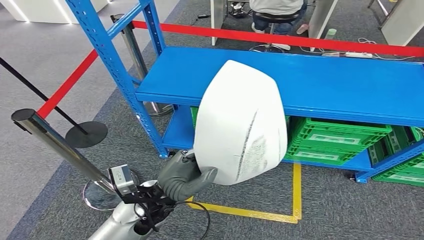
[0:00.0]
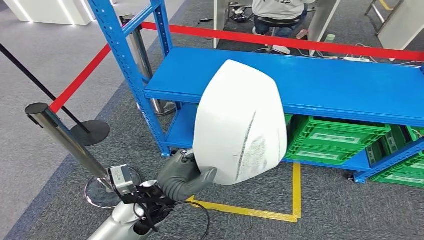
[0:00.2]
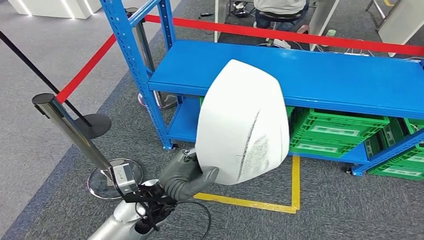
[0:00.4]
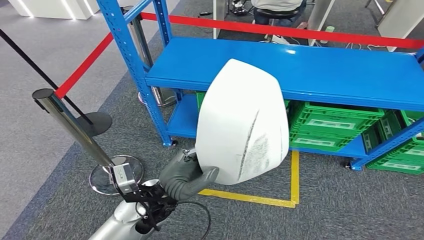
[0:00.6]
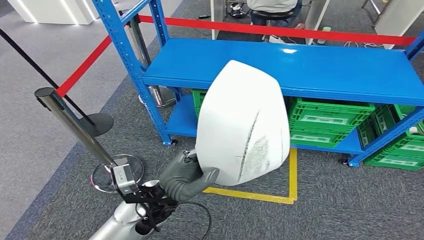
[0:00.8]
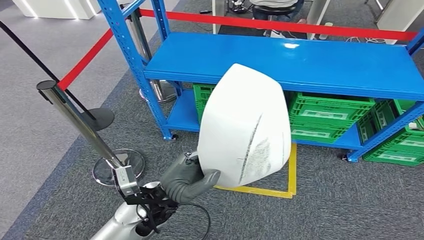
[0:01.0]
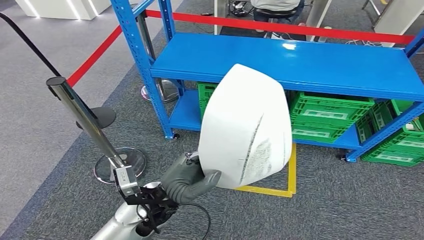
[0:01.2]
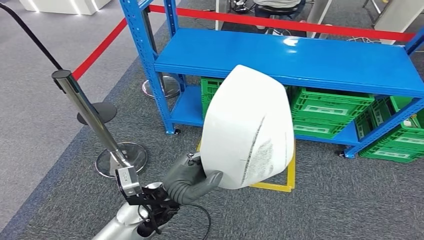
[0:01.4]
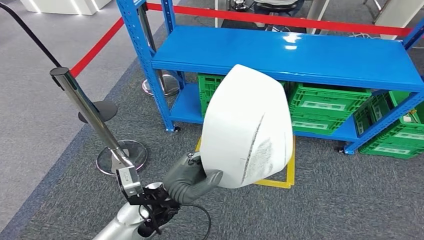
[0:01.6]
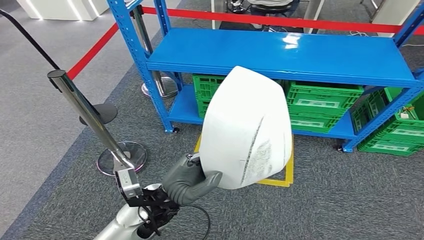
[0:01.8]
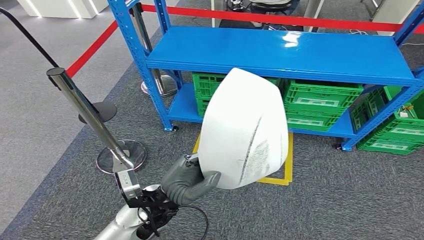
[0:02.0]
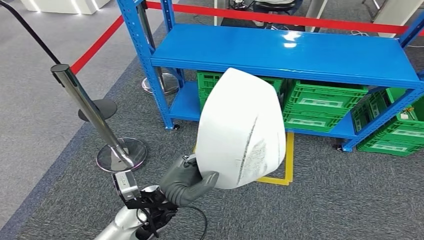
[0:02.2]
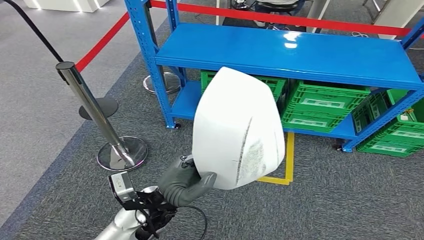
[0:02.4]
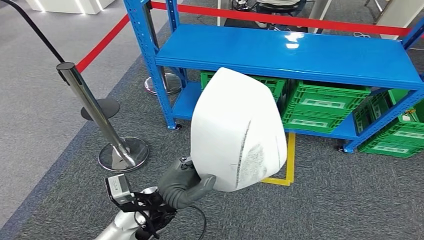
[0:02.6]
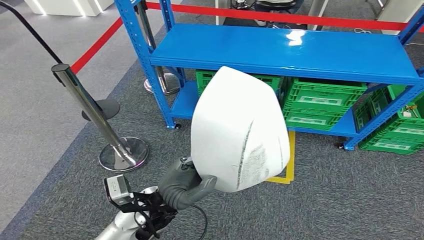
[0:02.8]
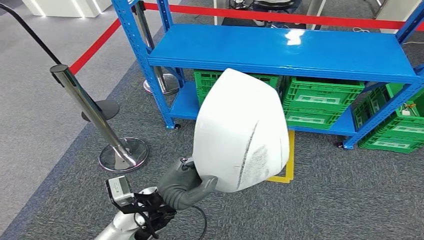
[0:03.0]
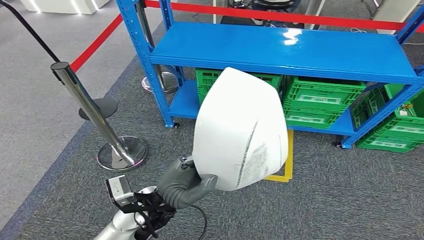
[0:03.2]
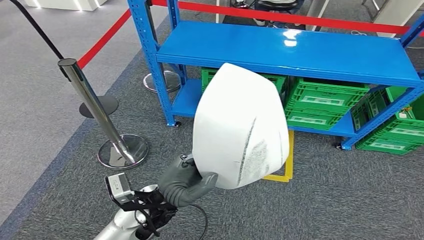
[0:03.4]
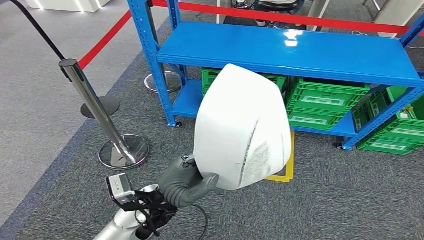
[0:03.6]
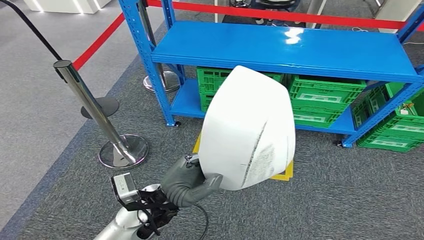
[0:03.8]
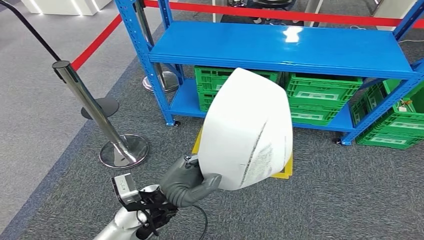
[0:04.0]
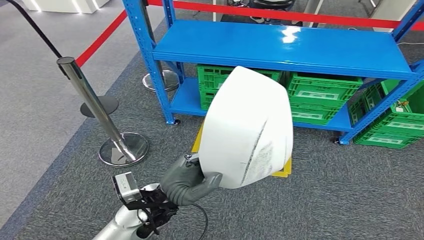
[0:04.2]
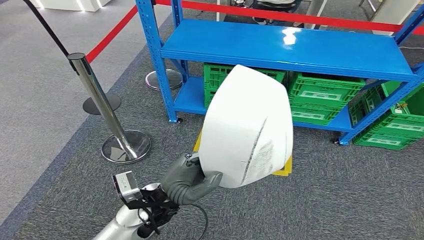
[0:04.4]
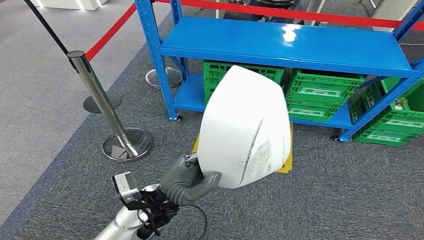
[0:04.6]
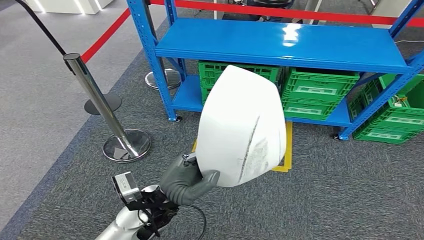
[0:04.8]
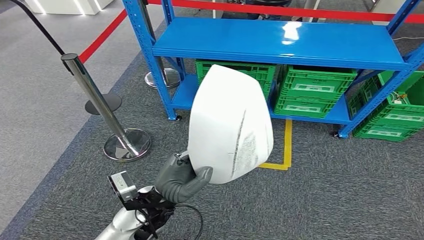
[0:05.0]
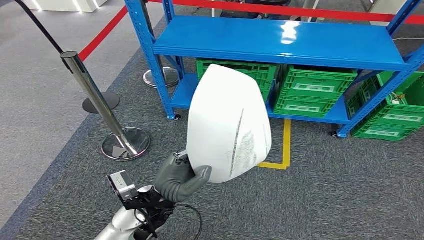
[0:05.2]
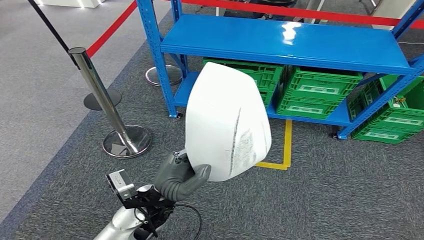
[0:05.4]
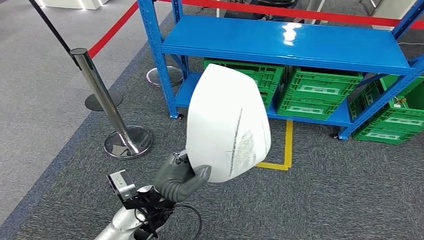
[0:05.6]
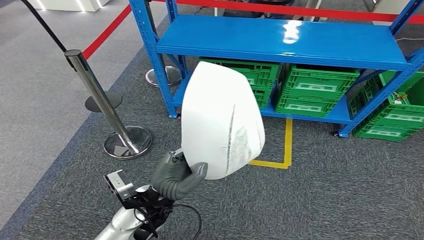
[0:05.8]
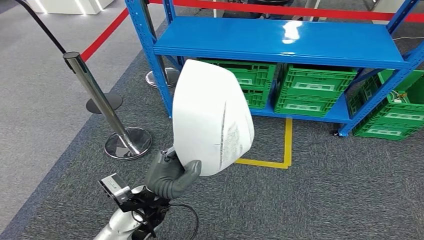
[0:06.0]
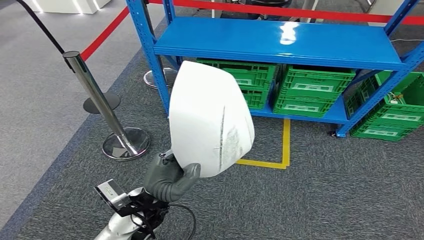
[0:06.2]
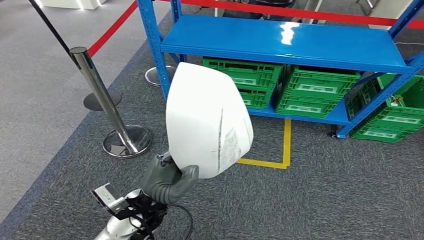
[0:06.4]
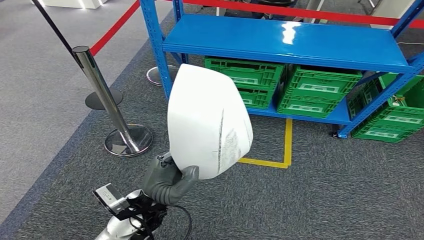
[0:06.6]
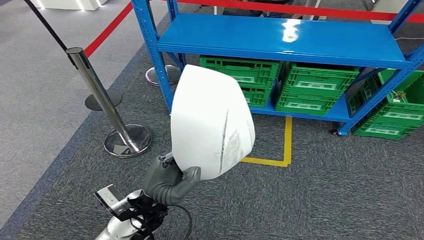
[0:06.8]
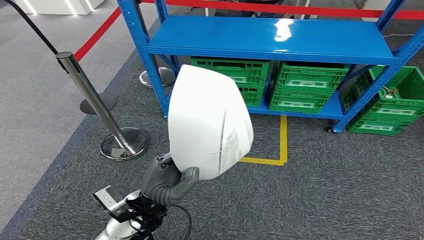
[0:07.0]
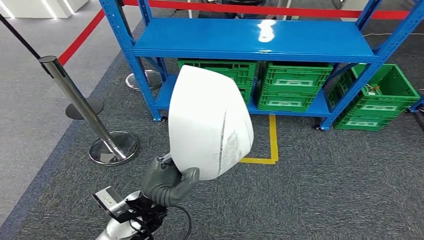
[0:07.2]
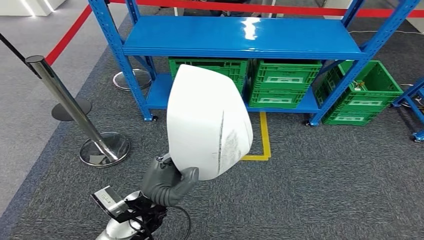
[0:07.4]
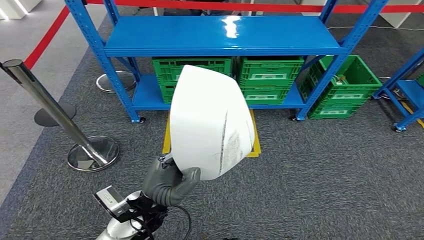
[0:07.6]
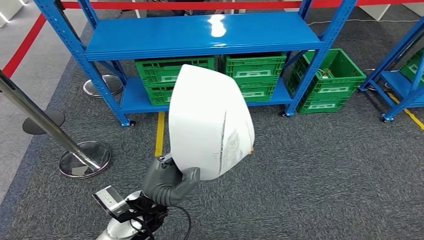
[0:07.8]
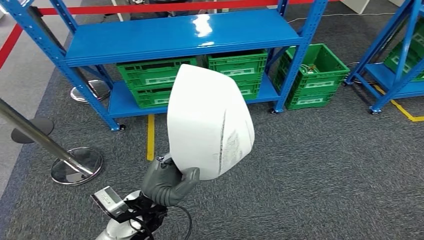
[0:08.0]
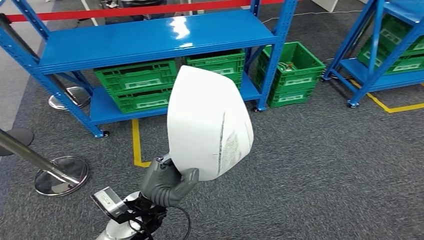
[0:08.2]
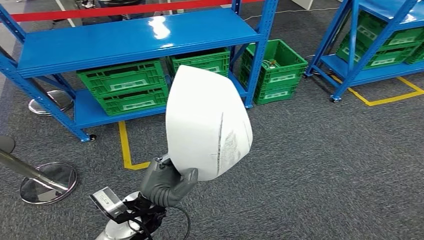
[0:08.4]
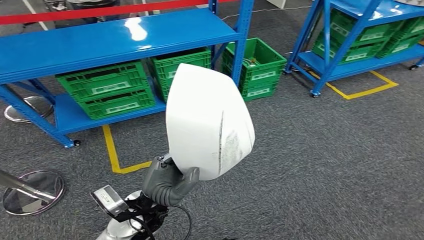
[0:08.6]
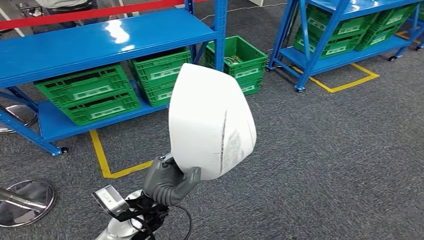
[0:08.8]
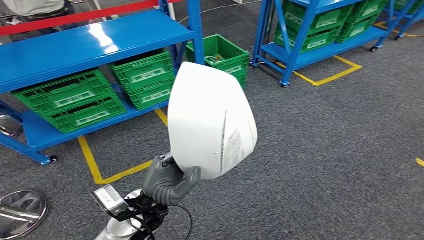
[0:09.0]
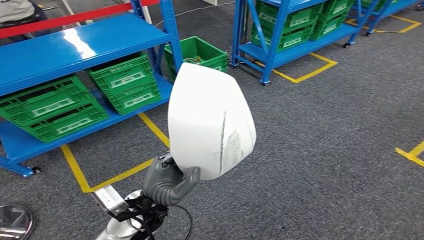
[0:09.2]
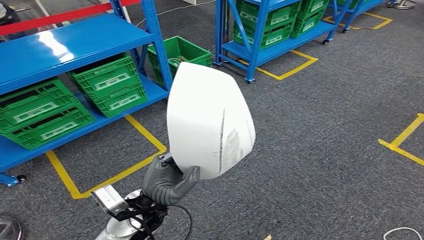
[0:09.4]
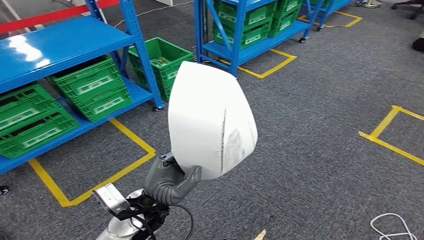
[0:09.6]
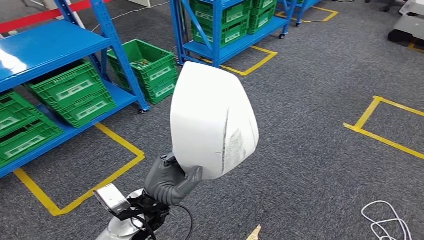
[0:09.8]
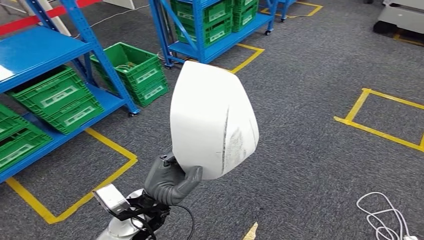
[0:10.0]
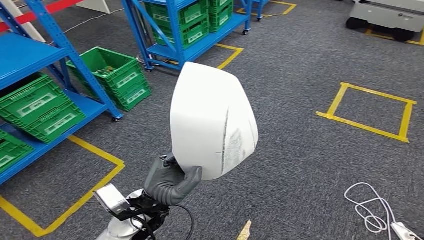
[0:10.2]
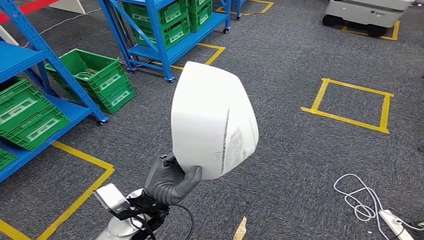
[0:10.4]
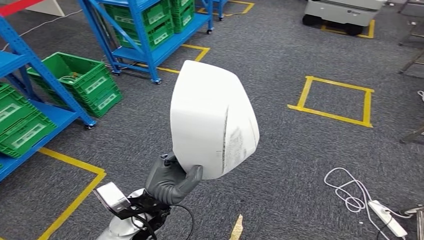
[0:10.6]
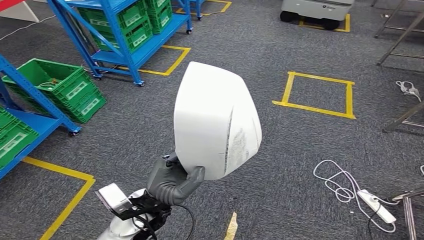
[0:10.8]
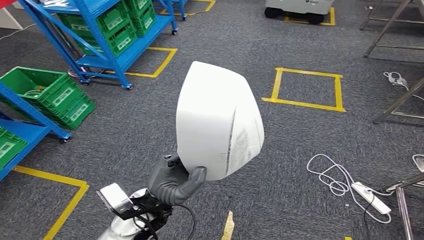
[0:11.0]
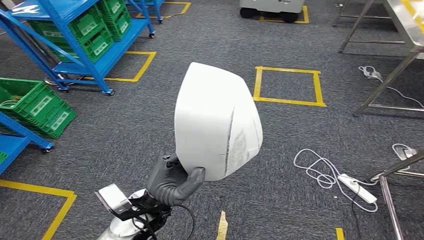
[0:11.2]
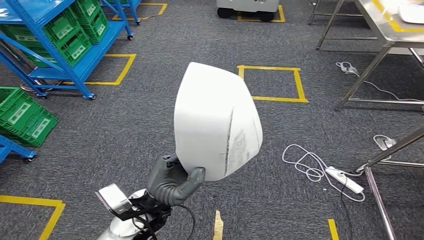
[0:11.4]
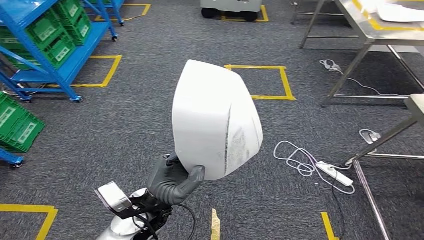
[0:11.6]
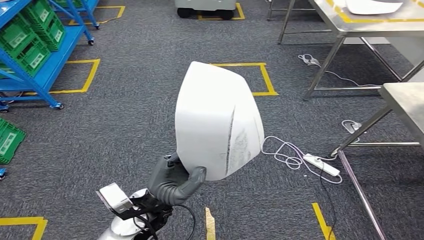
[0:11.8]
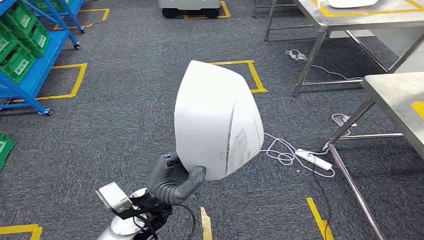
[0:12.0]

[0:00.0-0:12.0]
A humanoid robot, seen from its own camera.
0:01.6 to 0:03.0: The hands stay close to where they were, moving slightly.

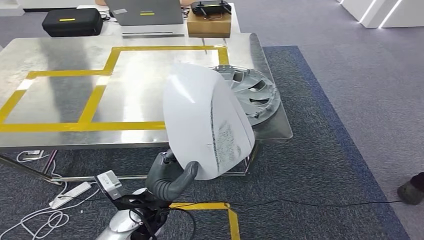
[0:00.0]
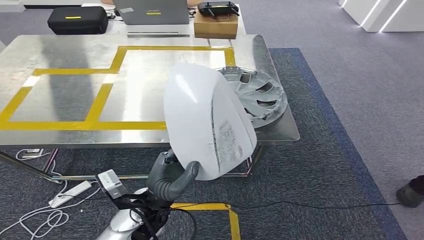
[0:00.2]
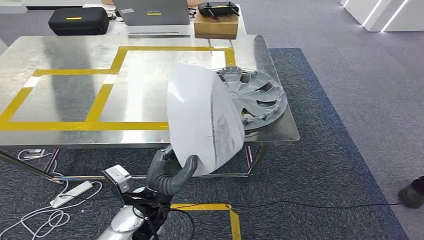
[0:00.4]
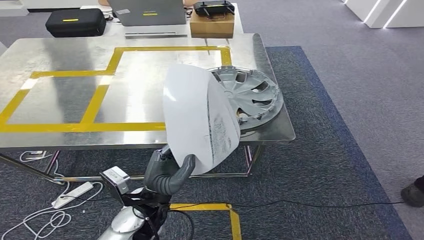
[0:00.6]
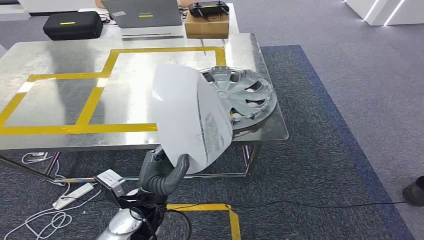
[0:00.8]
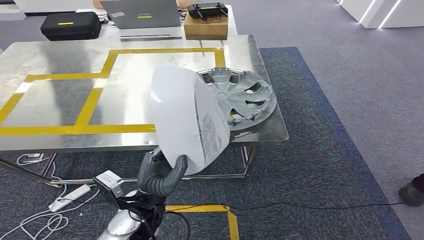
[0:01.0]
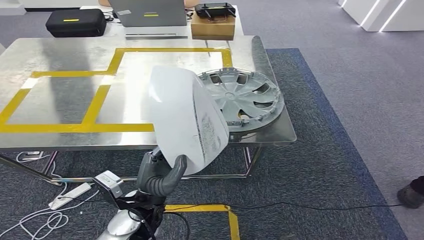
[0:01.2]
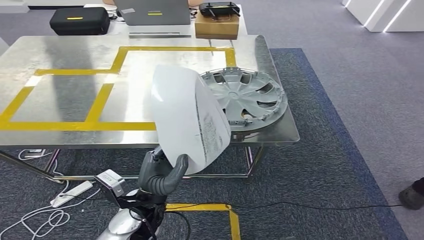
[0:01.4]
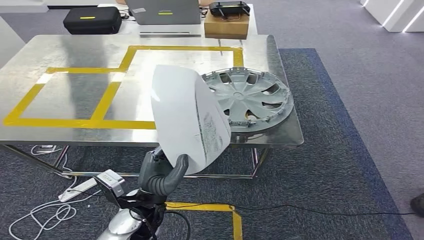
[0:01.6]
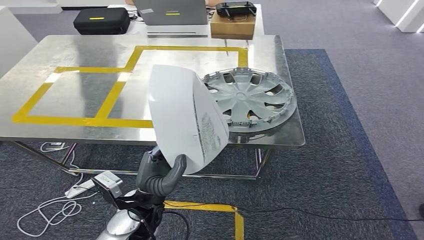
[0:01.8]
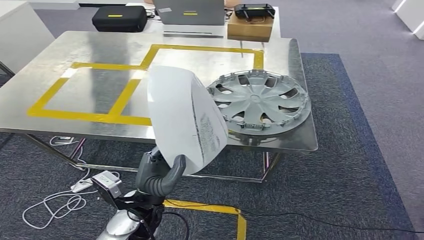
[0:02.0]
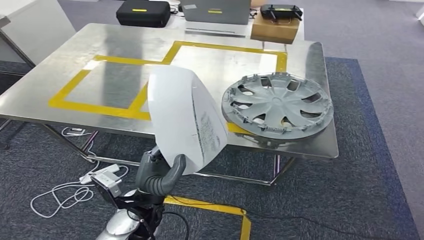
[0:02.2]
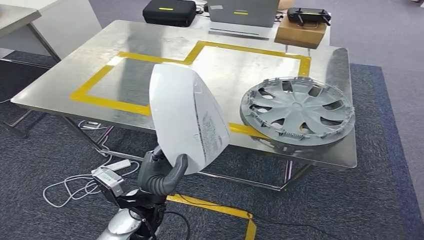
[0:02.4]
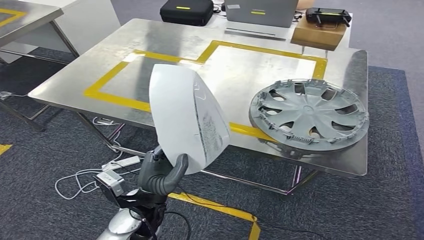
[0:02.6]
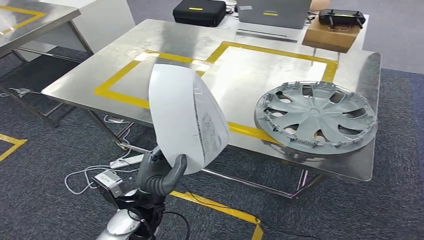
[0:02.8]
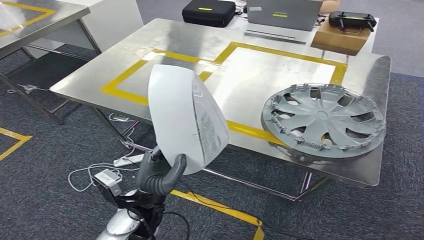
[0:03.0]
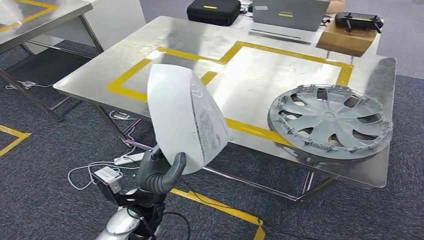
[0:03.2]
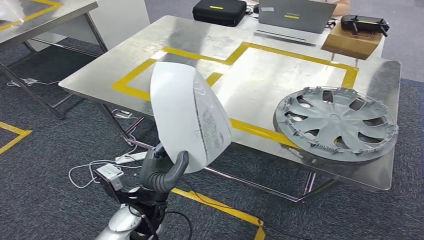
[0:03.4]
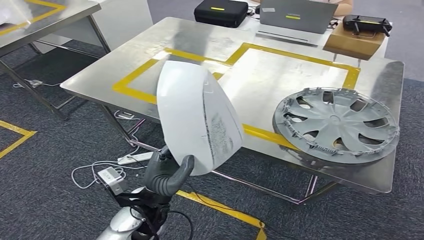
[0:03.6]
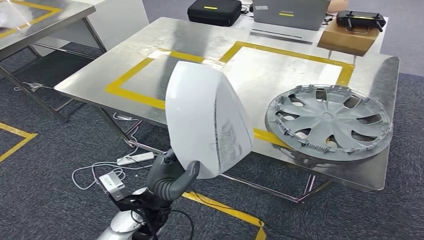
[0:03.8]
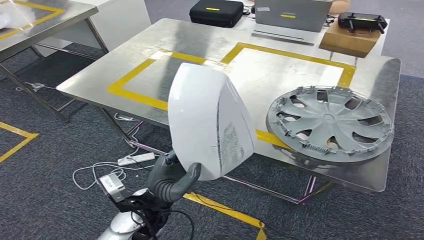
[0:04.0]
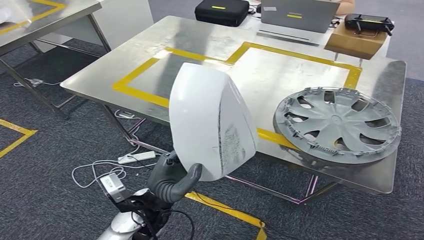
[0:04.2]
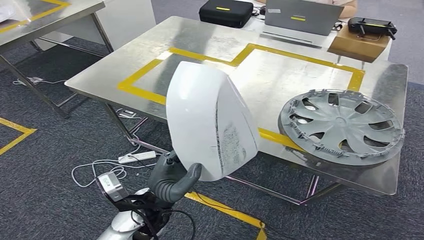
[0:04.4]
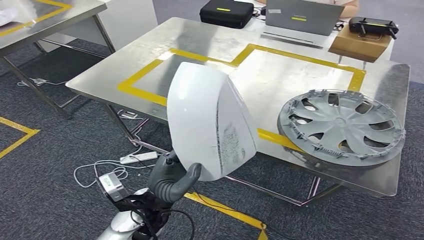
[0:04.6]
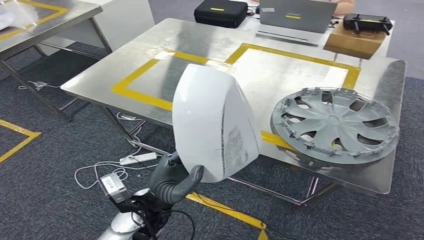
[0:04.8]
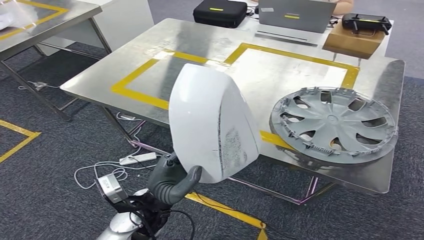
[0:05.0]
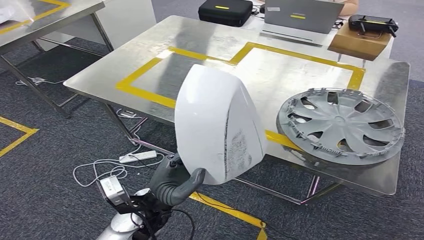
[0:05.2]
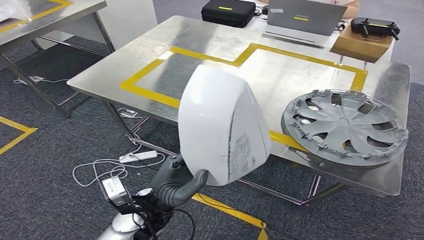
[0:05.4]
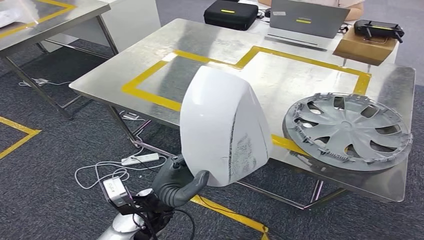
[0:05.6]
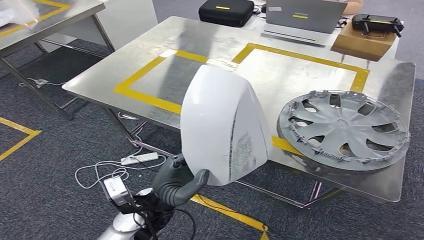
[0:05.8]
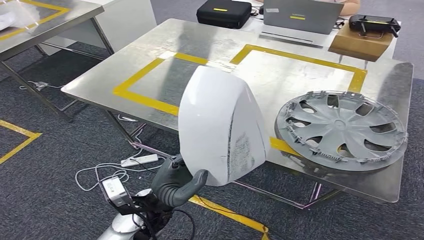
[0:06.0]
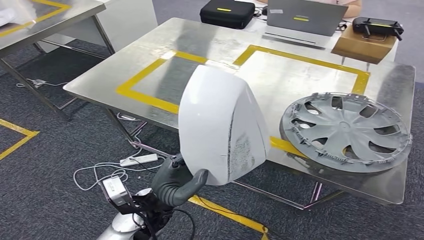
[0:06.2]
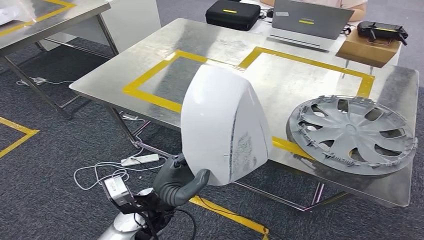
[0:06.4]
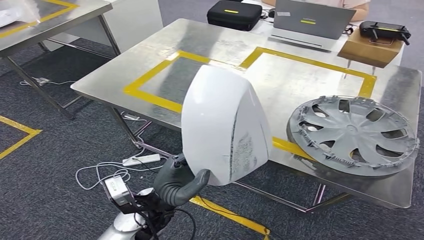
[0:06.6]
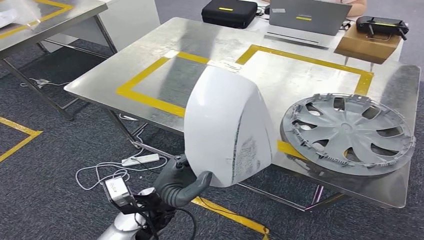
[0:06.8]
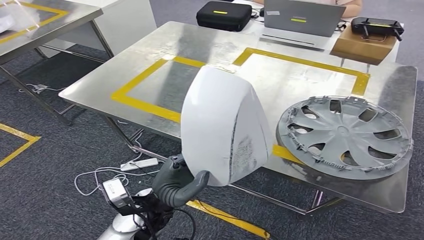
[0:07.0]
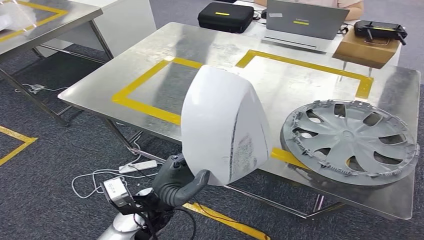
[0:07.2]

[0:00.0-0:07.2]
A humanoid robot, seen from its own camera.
Step, 0:00.0 to 0:02.0: Move the small parts to the workbench.
